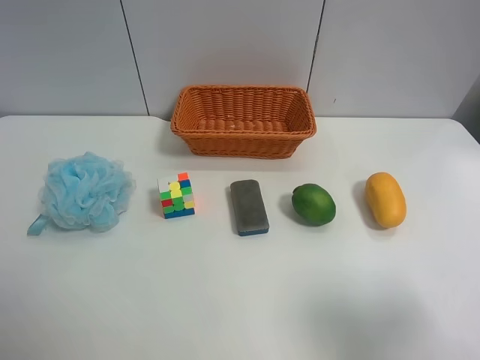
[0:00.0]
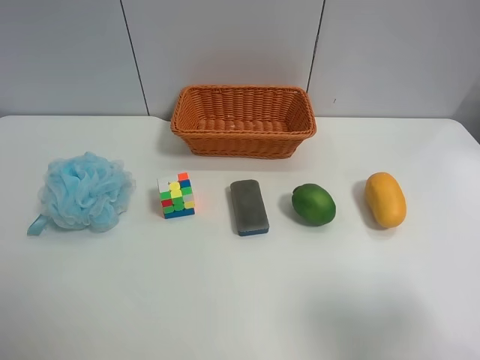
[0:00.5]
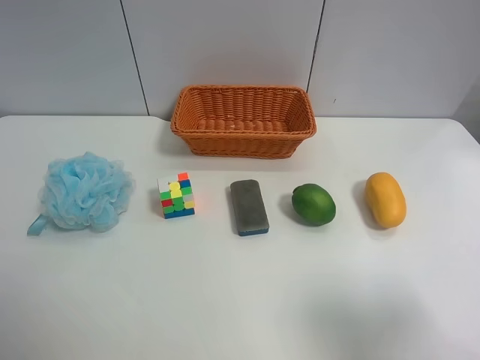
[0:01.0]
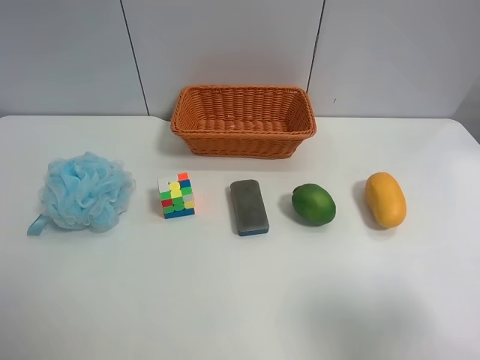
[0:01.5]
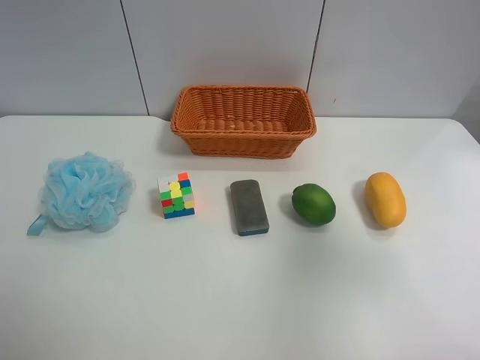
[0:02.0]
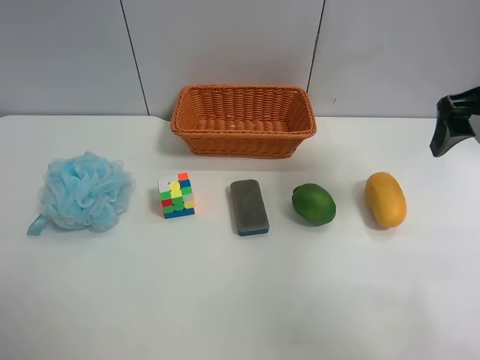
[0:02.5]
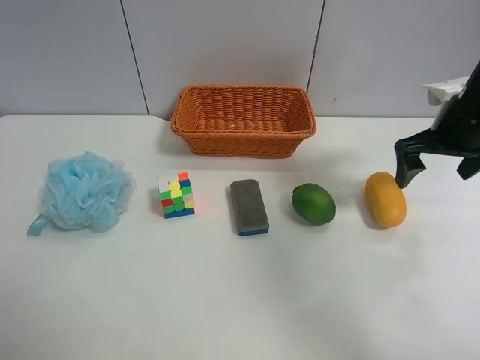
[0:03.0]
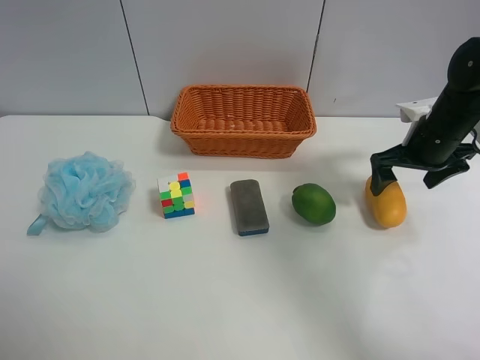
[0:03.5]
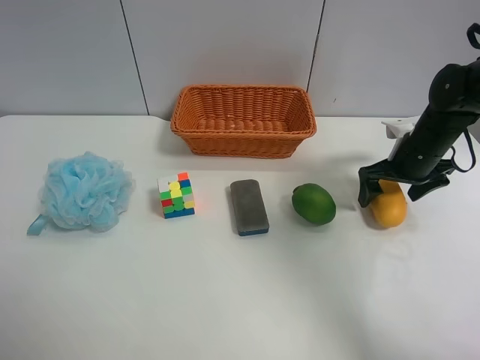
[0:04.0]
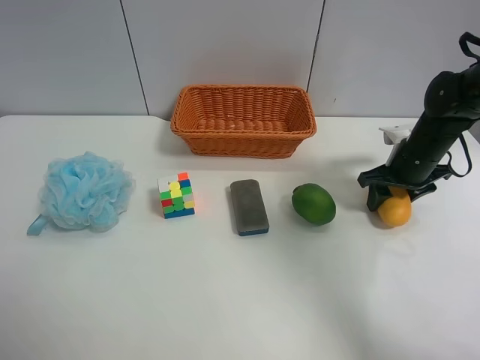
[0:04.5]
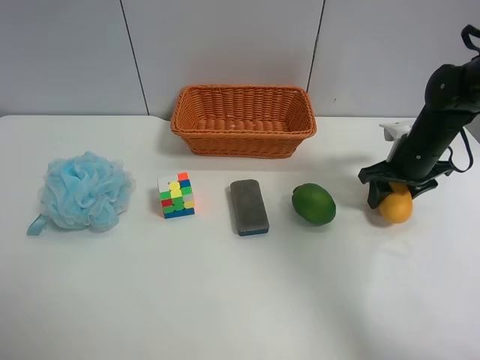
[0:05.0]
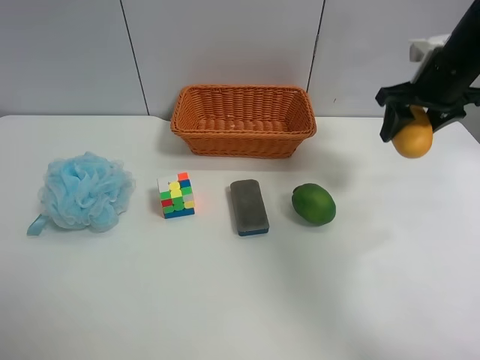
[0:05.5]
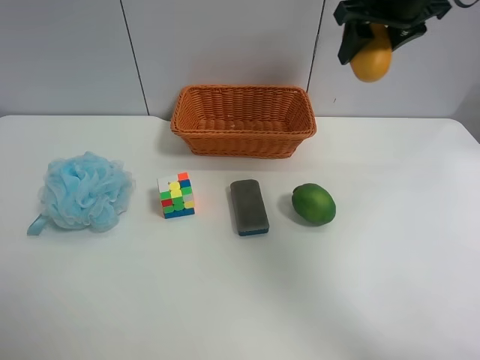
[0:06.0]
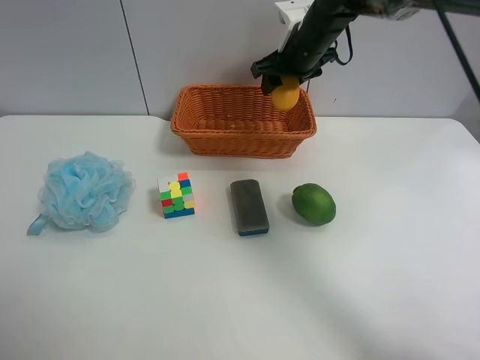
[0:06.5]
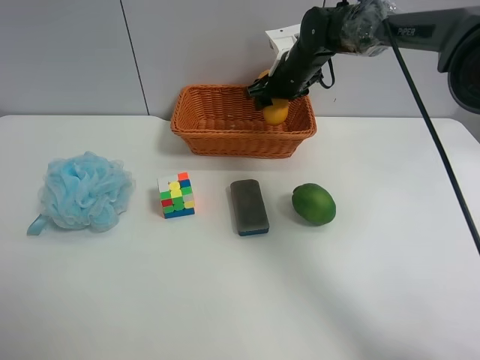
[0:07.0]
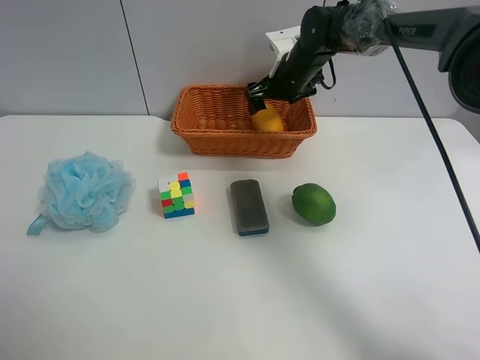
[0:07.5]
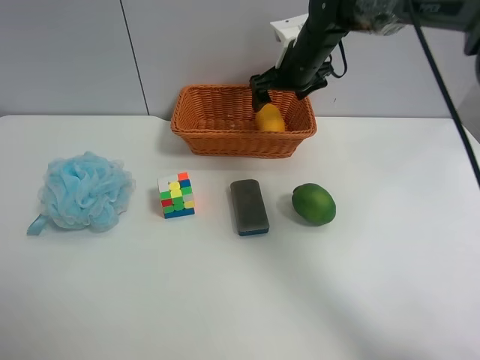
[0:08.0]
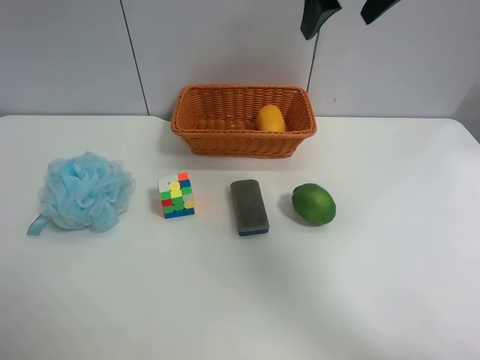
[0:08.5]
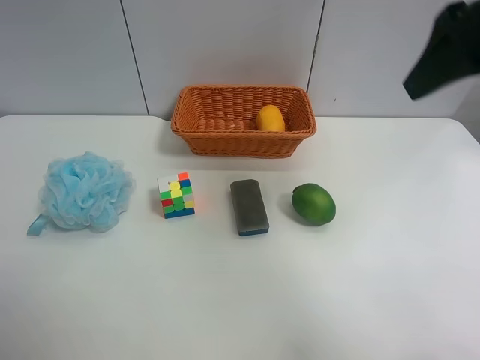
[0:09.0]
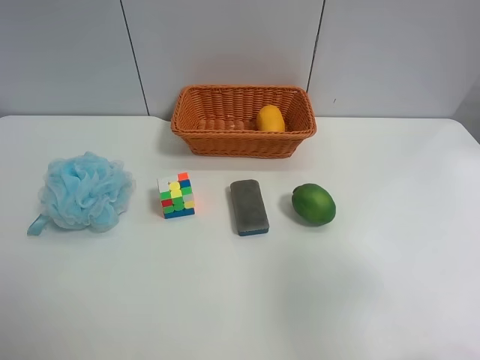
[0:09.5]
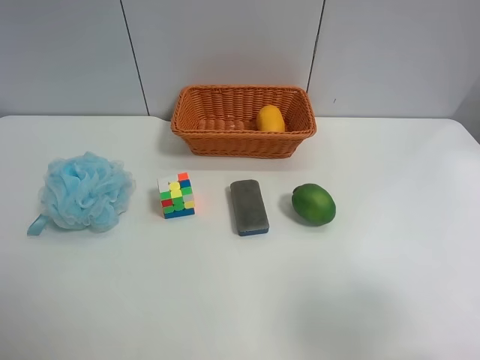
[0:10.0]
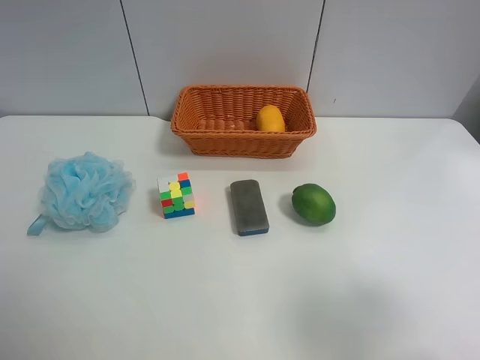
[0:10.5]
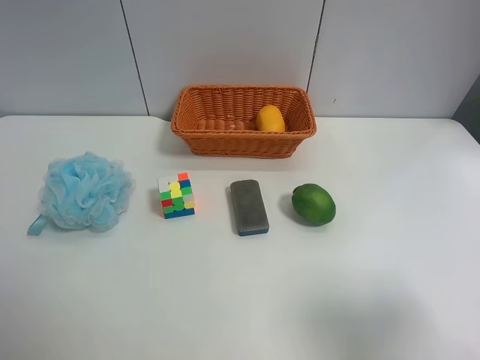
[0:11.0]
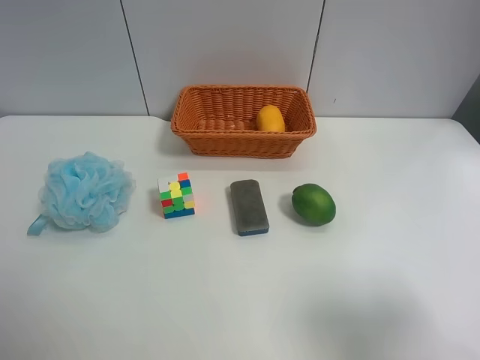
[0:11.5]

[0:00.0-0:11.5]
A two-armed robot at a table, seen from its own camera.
Task of the whole recording: Randomly grab green lemon or mangoes from the table and put them in a basket.
Step, 0:00.0 to 0:04.5: Grasp the mango with the right gripper.
Step, 0:05.0 to 0:08.0: Place the mango into the basket with the right gripper.
0:00.0 to 0:02.0: The right gripper is displaced forward and upward by some 10 cm.
0:02.0 to 0:04.0: The right gripper moves forward and downward, some 35 cm.
0:04.0 to 0:06.0: The right gripper shifts approximately 25 cm upward and to the left, and closes up.
0:06.0 to 0:07.5: The right gripper shifts approximately 20 cm downward, forward and to the left, and opens its fingers.
0:07.5 to 0:09.5: The right gripper heads backward, covering approximately 40 cm.
0:09.5 to 0:11.5: The right gripper ends up roughly 5 cm from where it was.
